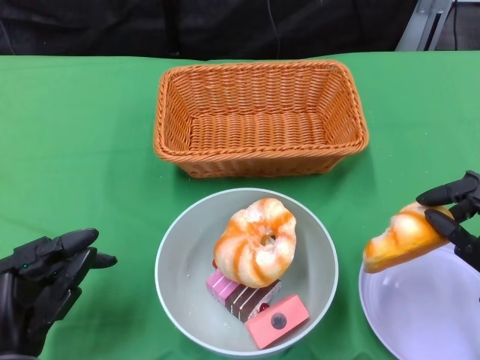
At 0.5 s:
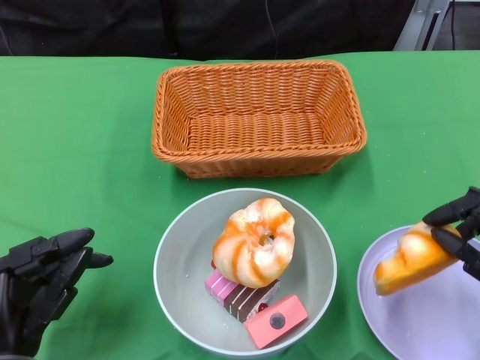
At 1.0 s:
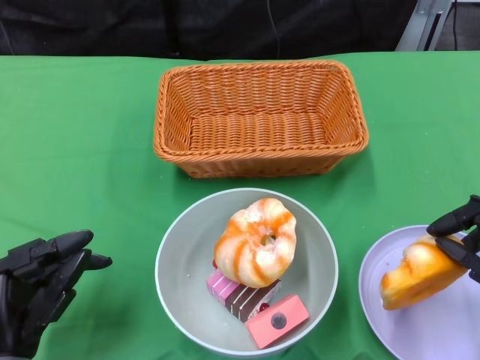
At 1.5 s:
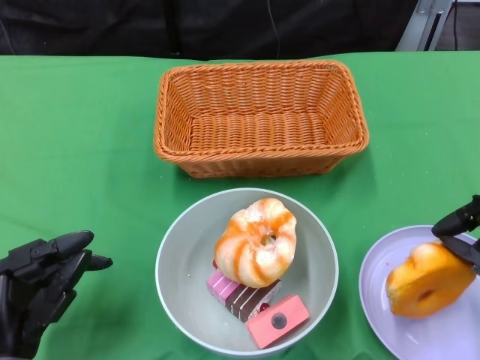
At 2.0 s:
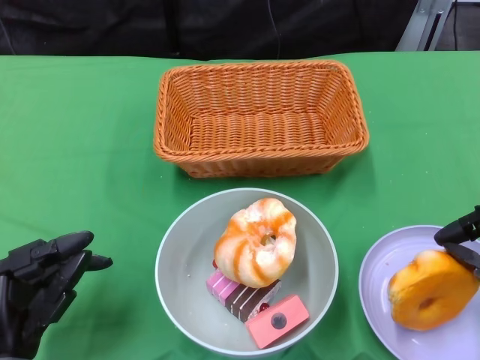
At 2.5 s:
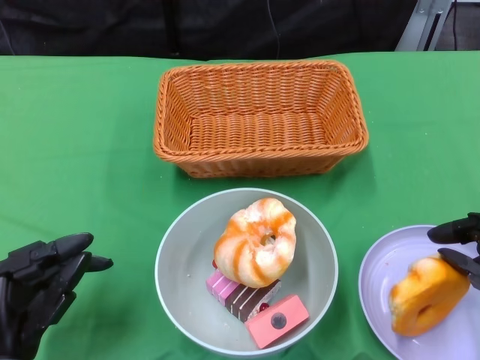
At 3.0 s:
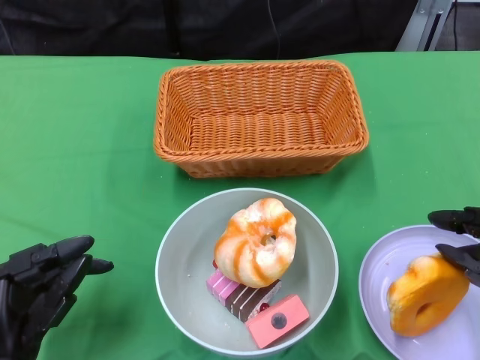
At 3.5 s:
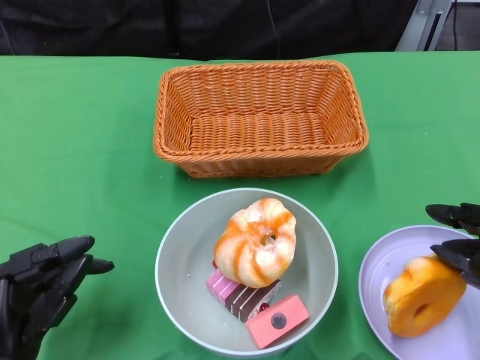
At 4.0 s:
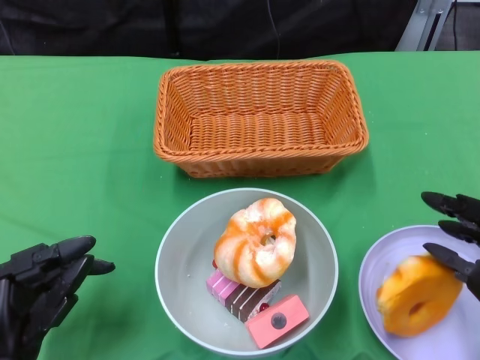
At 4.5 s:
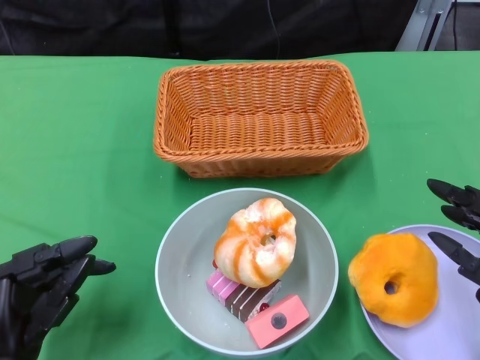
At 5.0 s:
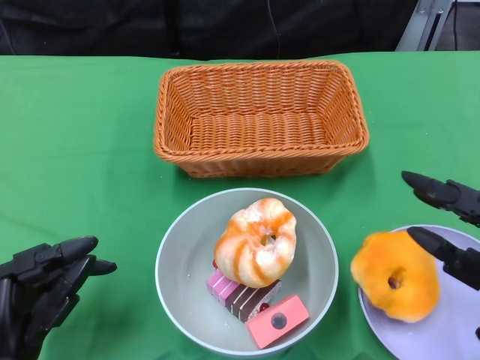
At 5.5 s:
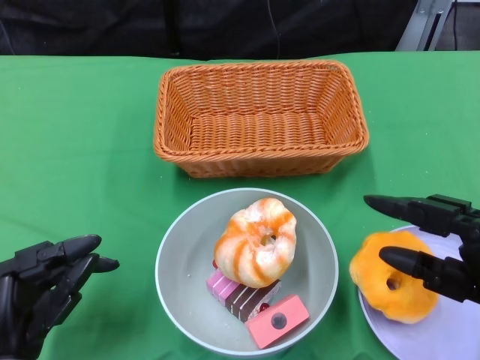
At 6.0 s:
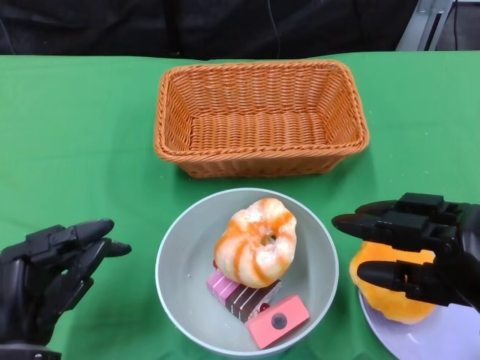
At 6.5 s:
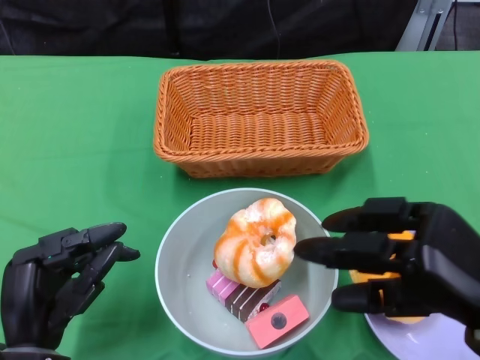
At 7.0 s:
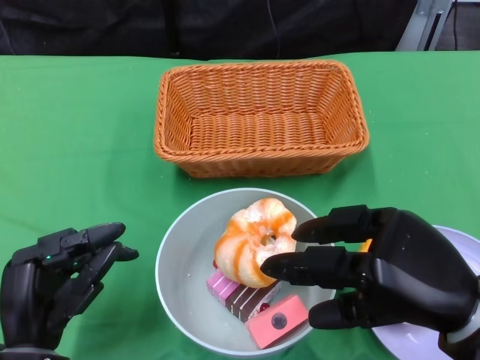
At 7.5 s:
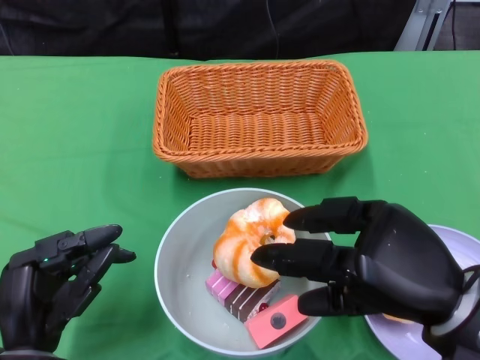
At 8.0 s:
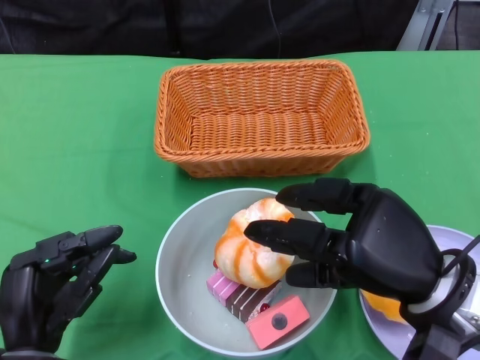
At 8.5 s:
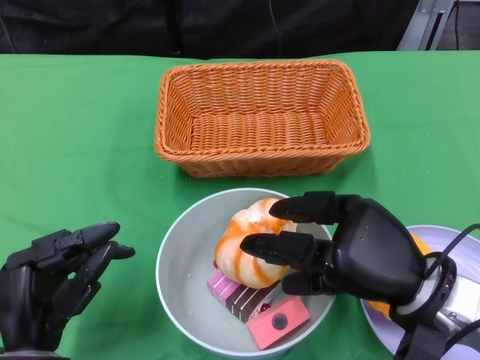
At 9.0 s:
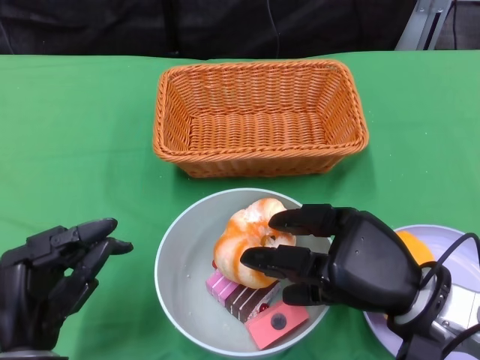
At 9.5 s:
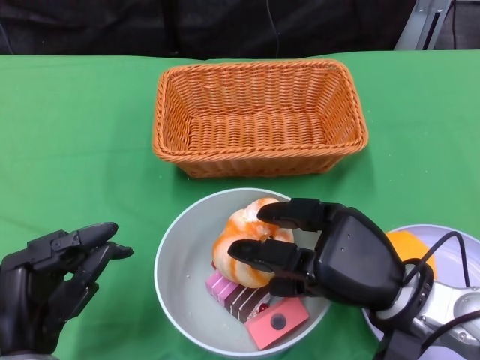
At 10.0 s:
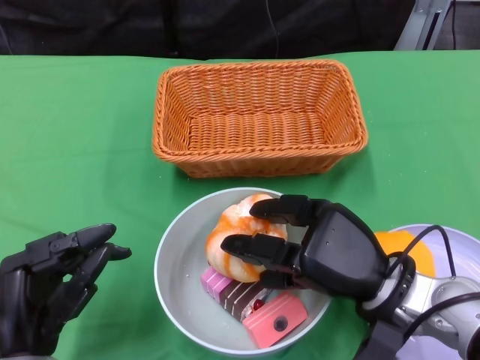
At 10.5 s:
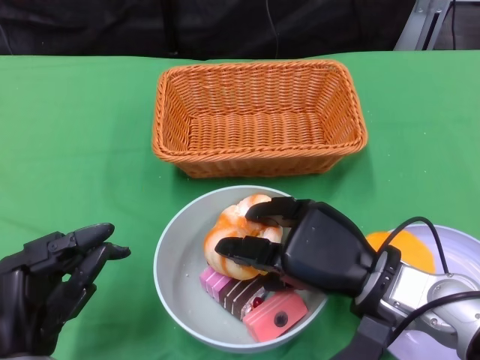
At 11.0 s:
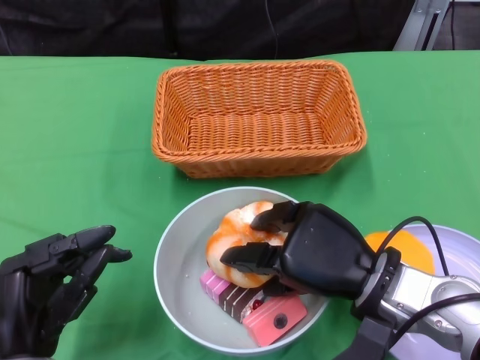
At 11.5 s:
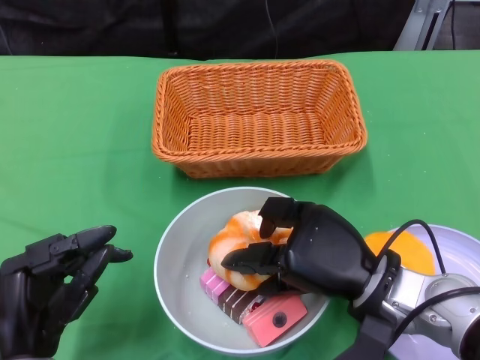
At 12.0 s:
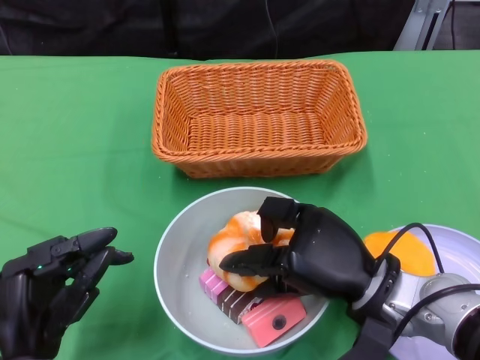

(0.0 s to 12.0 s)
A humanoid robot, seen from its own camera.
2.0 s - 4.0 s: The hands stay close to where they were, moving slightly.
6.0 s - 8.0 s: The right hand travels to the left by some 5 cm.
8.0 s - 10.0 s: The right hand heads downward, covering about 5 cm.
10.0 s - 12.0 s: The hands stay close to where they were, moving slightly.

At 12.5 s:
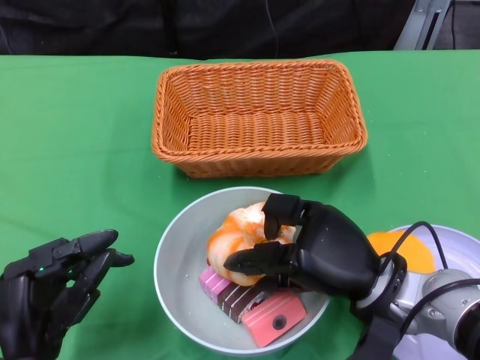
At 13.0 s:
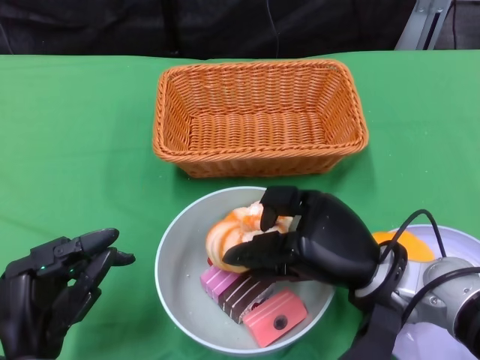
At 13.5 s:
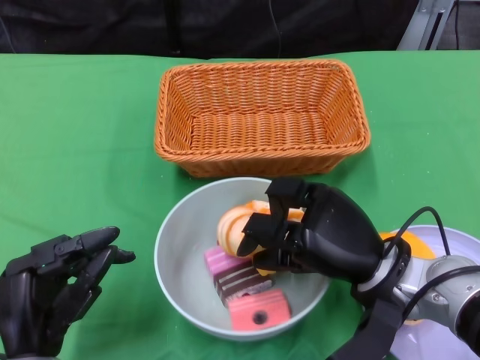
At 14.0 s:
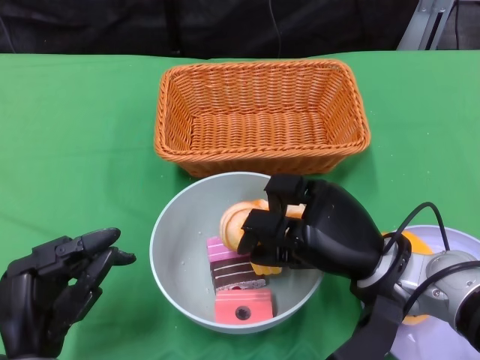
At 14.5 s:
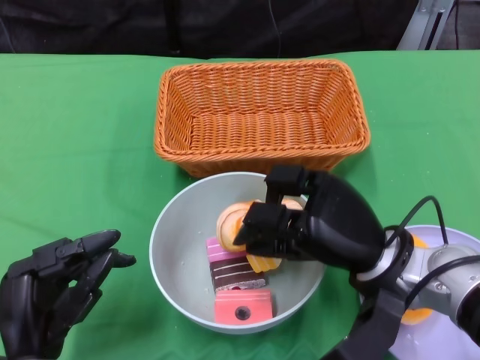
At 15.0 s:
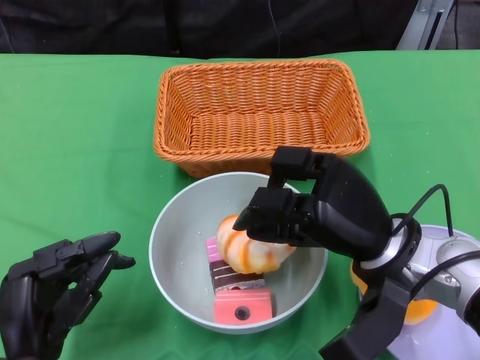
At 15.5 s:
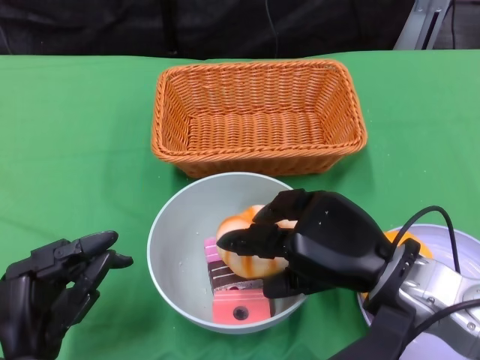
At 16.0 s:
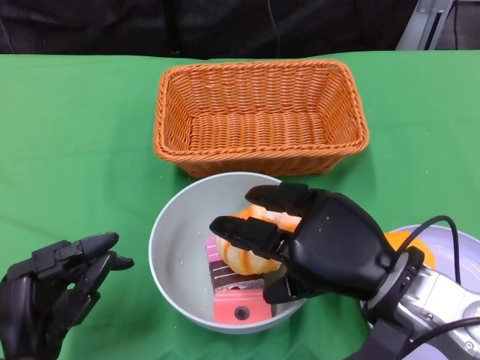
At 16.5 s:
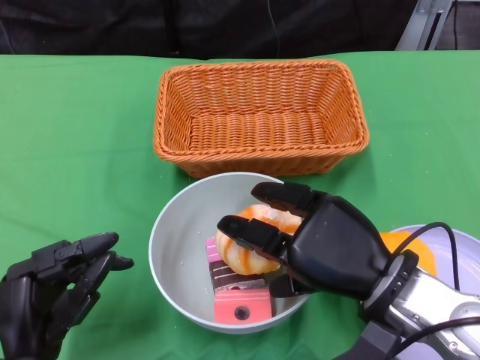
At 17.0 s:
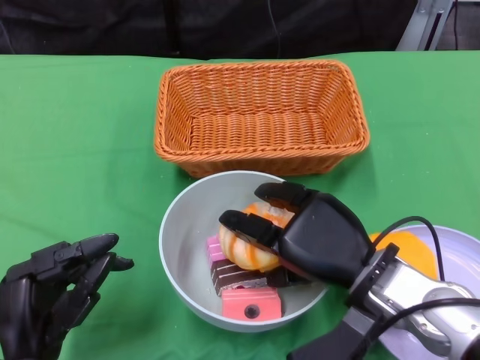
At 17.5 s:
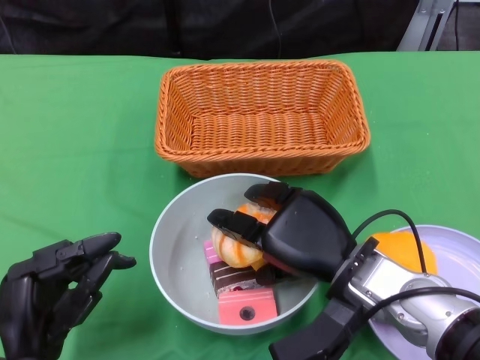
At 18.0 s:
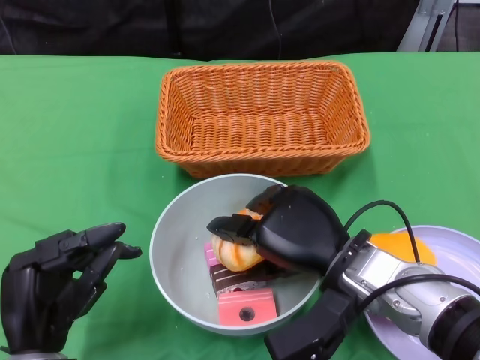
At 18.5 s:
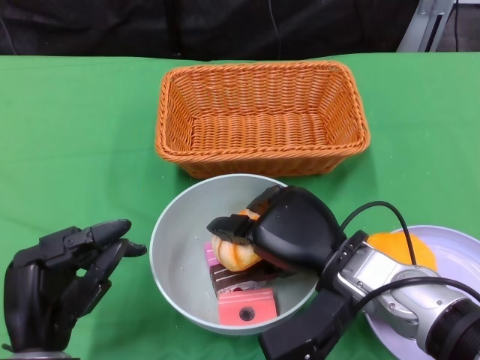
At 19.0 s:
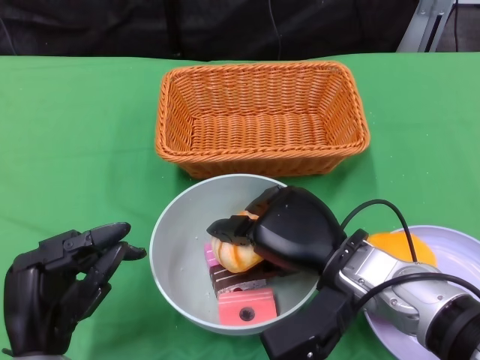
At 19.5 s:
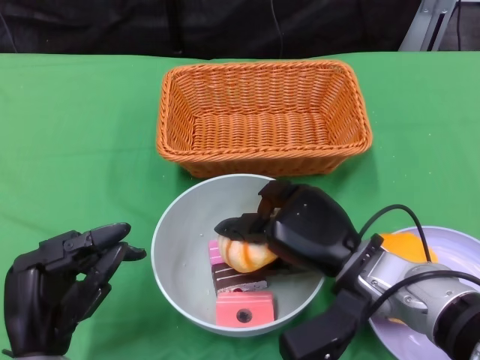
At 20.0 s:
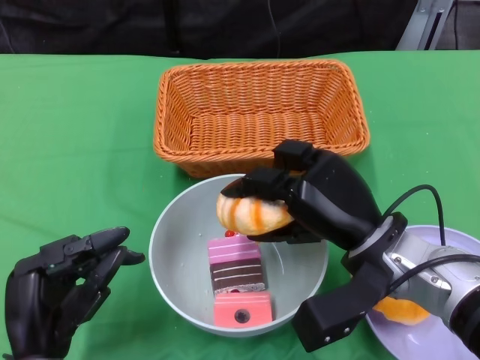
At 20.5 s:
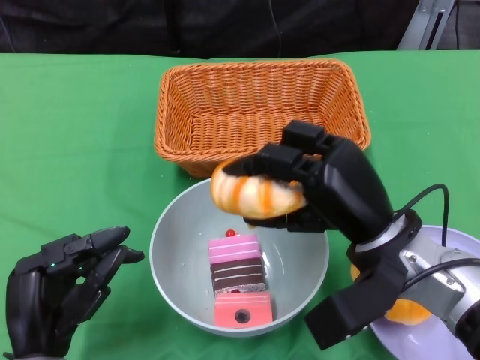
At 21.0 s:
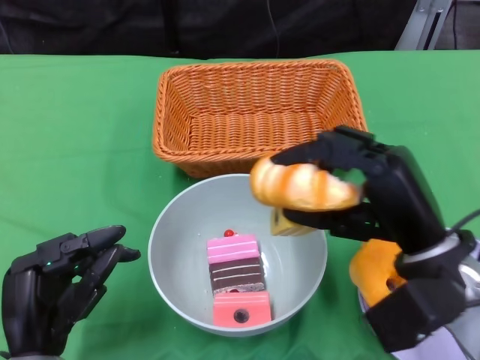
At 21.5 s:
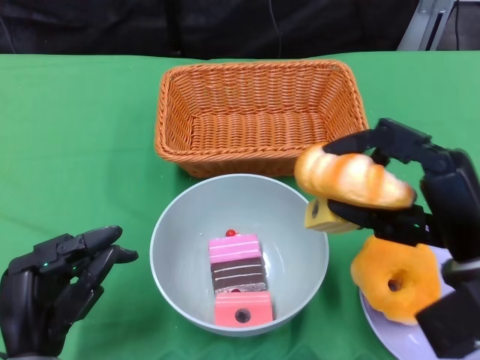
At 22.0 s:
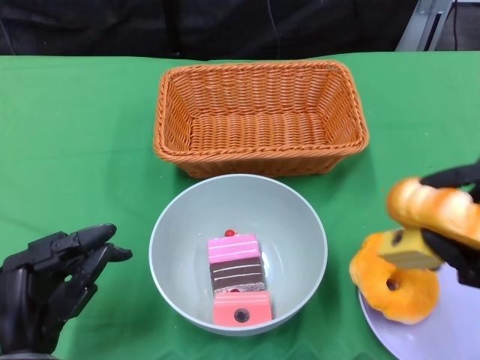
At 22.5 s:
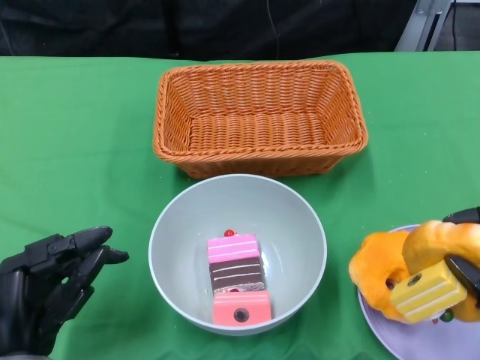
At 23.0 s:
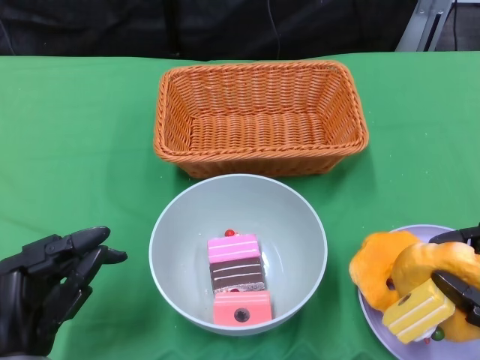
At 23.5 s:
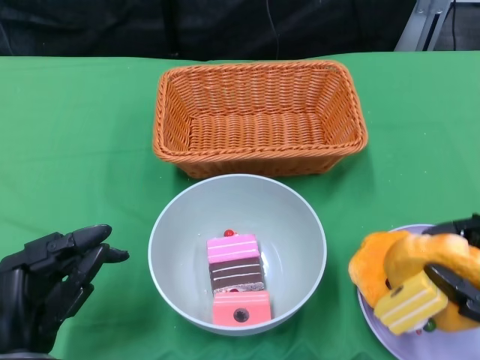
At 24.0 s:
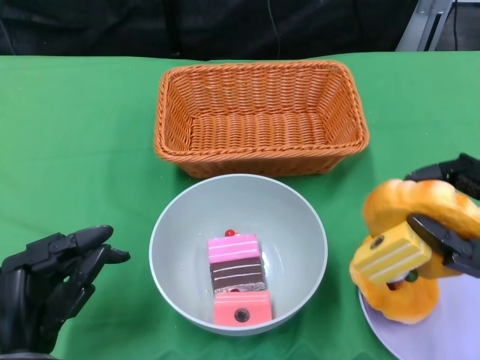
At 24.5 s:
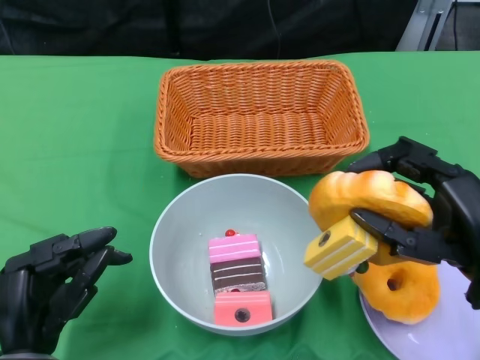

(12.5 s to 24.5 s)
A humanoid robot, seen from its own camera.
16.5 s - 18.5 s: The right hand changes place by some 5 cm.
20.5 s - 22.5 s: The right hand travels to the right and backward by roughly 20 cm.
22.5 s - 24.5 s: The right hand heads to the left, covering approximately 5 cm.

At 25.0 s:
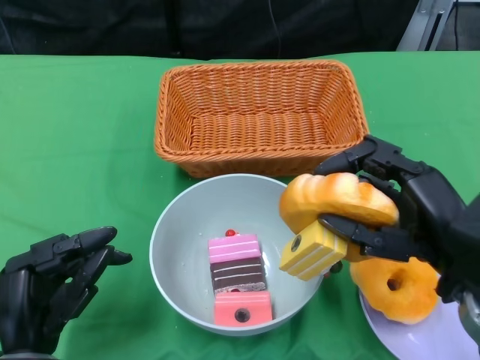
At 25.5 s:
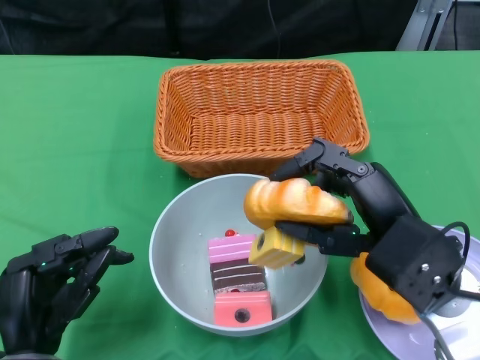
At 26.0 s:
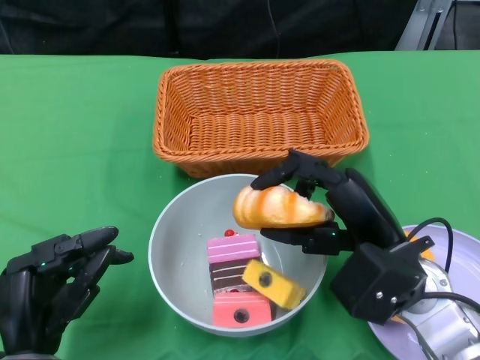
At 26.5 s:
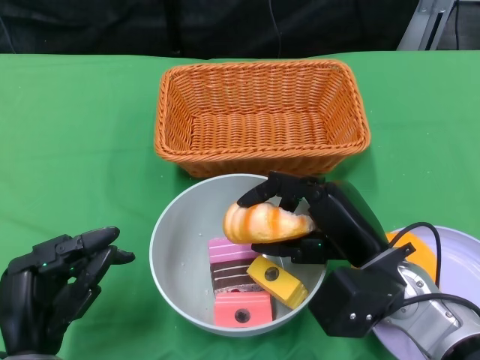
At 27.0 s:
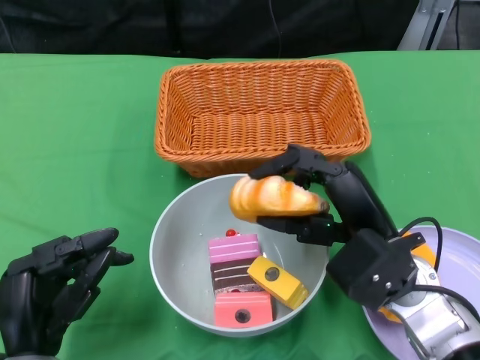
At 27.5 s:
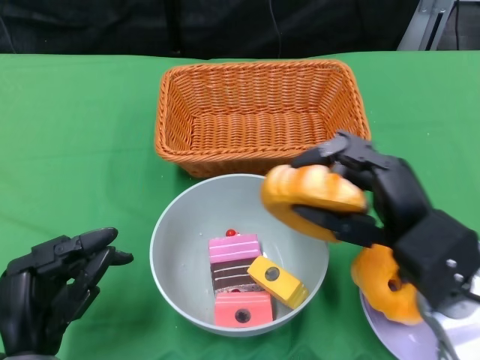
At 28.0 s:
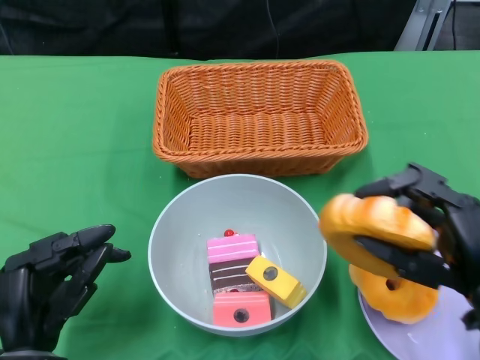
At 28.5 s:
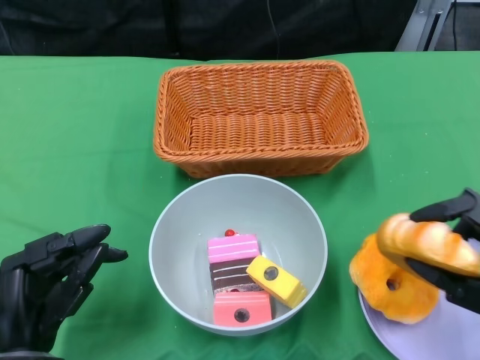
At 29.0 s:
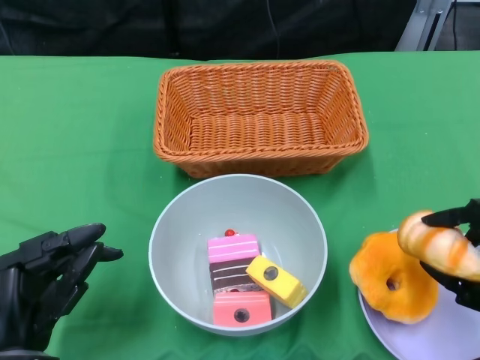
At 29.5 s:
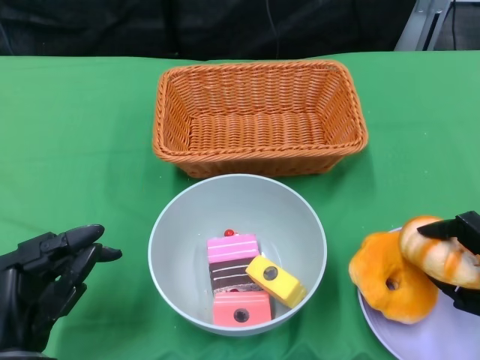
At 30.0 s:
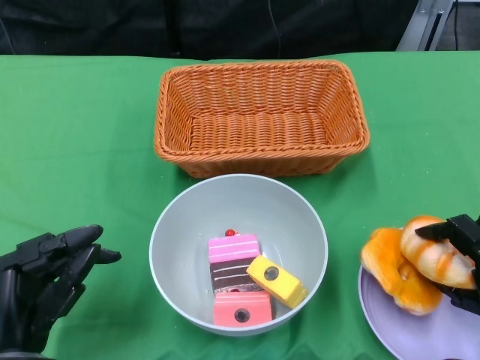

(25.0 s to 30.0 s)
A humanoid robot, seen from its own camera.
27.5 s - 30.0 s: The right hand goes about 15 cm downward and to the right.
